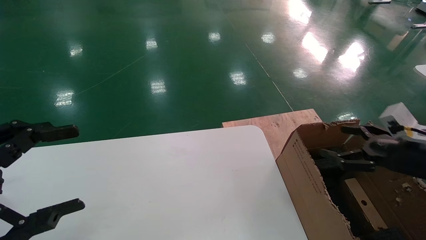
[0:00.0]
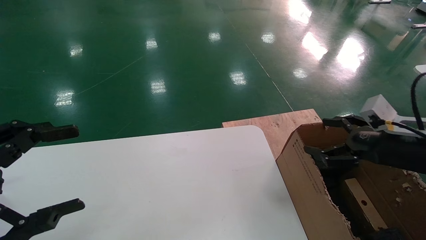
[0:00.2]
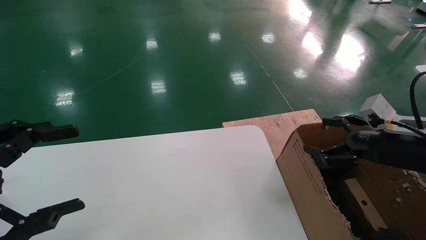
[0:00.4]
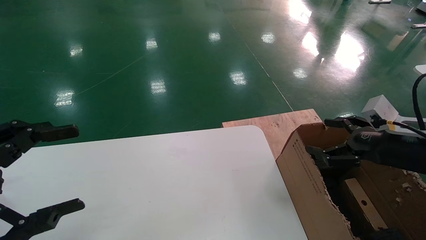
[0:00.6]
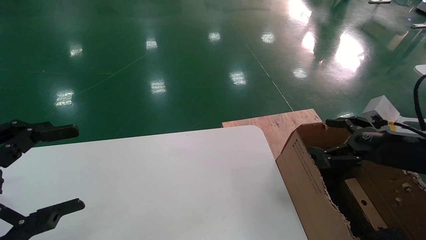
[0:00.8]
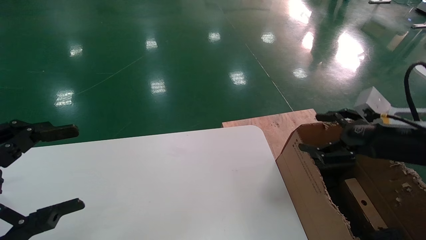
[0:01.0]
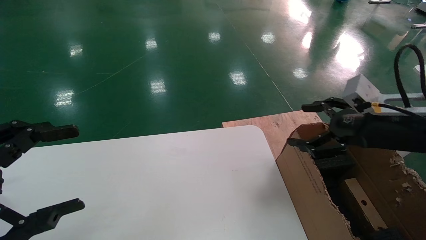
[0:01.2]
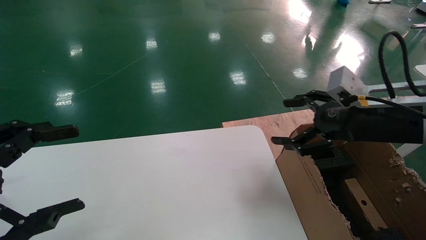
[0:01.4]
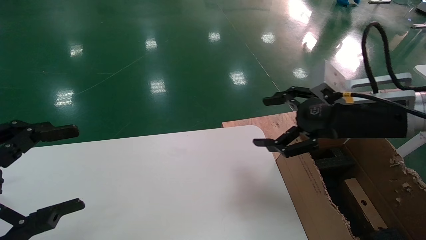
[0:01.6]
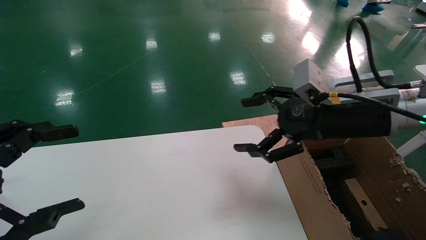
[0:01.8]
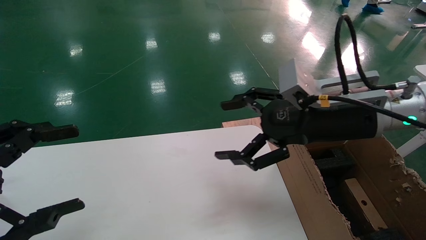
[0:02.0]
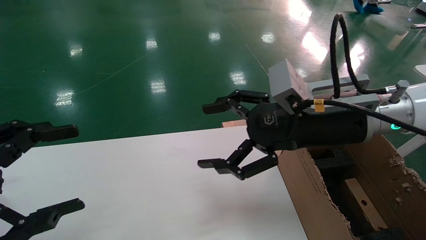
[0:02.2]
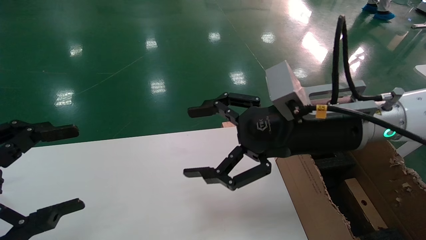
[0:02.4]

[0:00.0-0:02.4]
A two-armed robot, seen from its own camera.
Task of the whole recording: put the box on the table into the big box.
0:00.0 to 0:01.2: The right gripper heads upward and to the left, covering about 10 cm.
0:01.2 to 0:02.4: The right gripper is displaced to the left by some 15 cm.
